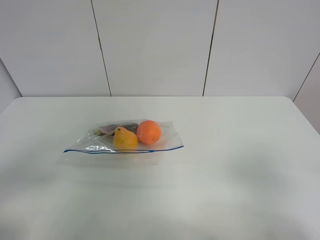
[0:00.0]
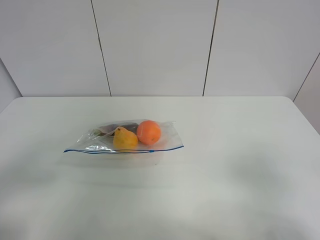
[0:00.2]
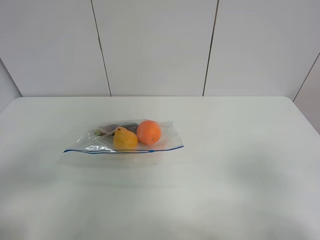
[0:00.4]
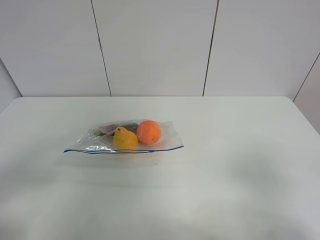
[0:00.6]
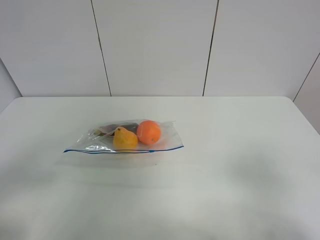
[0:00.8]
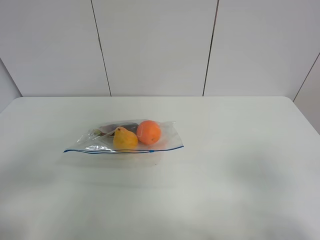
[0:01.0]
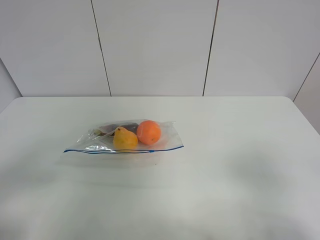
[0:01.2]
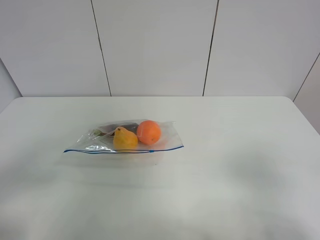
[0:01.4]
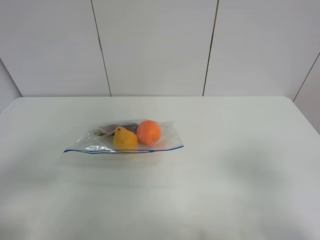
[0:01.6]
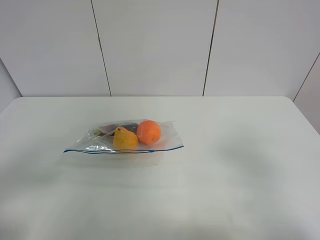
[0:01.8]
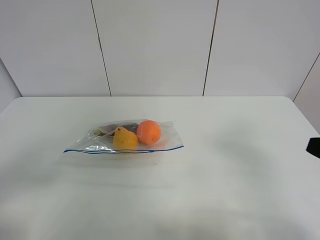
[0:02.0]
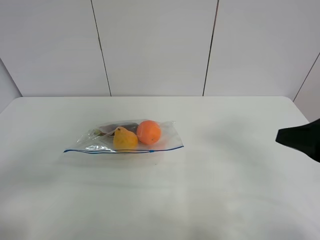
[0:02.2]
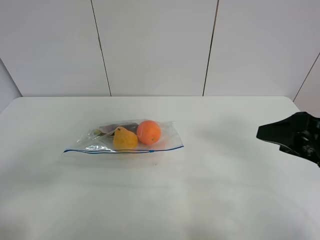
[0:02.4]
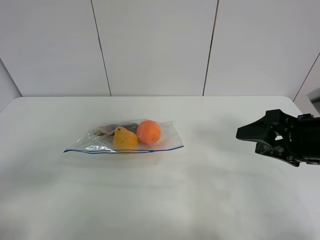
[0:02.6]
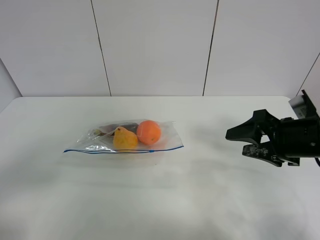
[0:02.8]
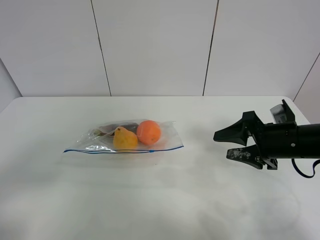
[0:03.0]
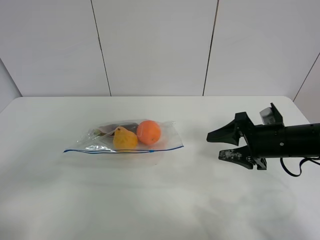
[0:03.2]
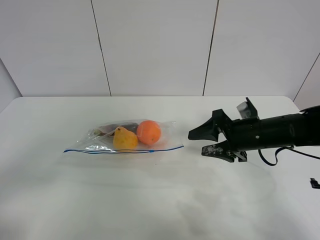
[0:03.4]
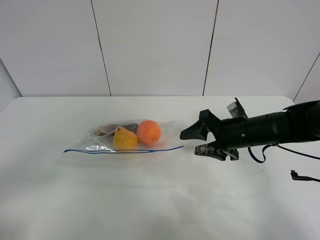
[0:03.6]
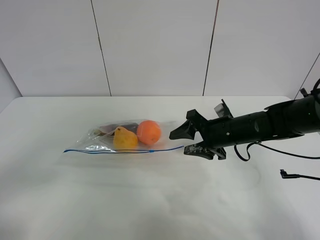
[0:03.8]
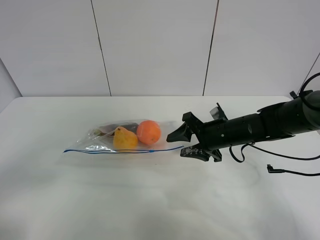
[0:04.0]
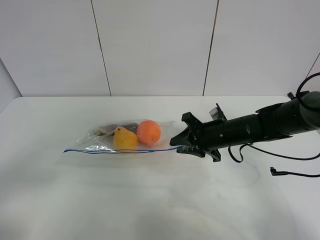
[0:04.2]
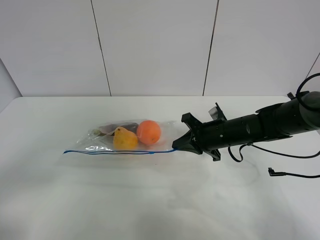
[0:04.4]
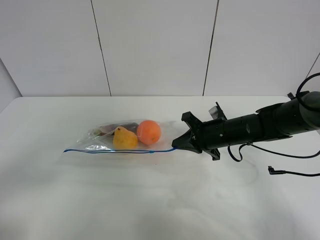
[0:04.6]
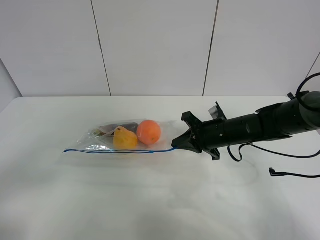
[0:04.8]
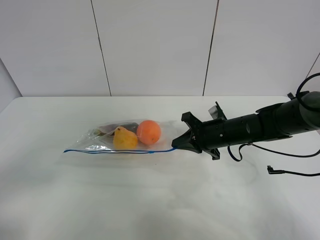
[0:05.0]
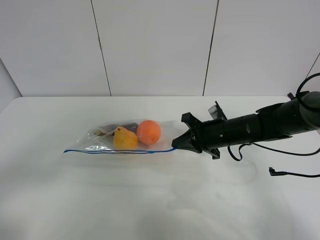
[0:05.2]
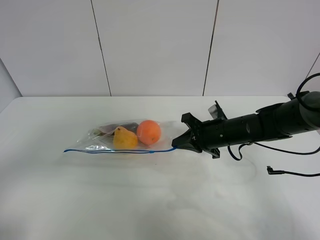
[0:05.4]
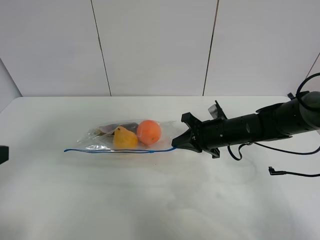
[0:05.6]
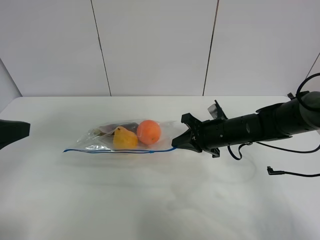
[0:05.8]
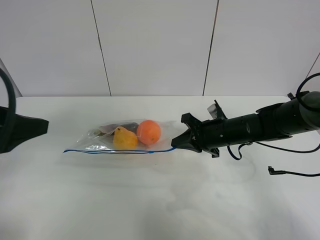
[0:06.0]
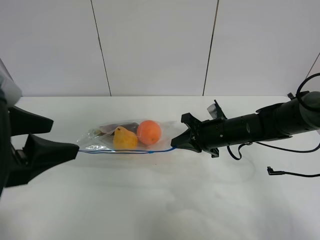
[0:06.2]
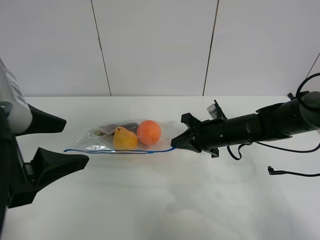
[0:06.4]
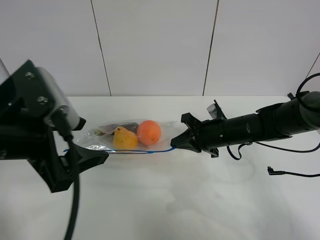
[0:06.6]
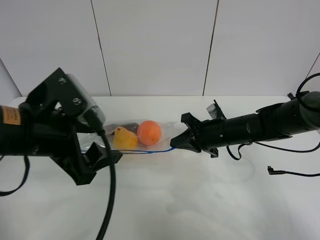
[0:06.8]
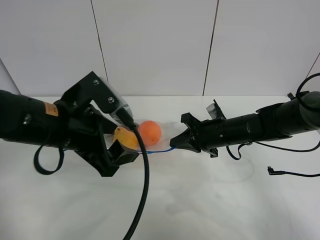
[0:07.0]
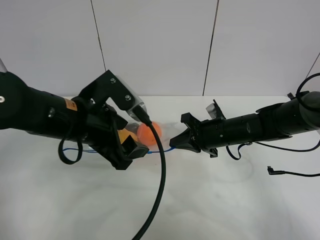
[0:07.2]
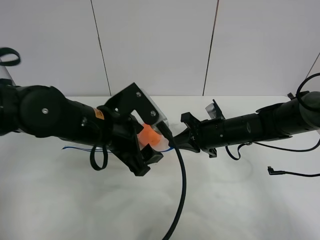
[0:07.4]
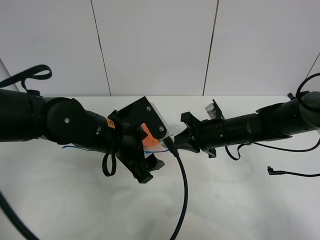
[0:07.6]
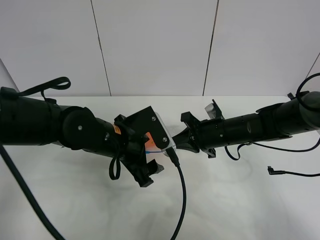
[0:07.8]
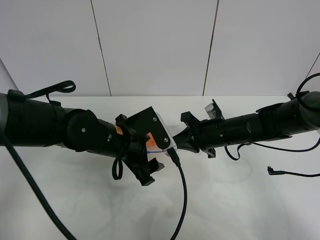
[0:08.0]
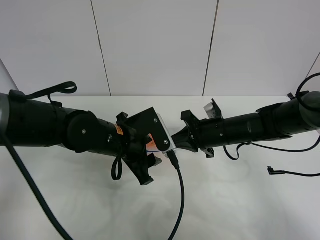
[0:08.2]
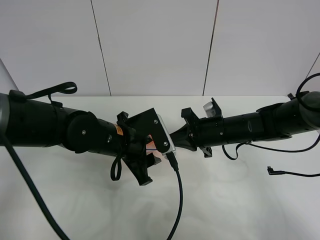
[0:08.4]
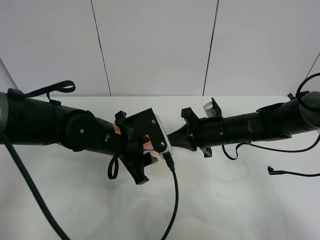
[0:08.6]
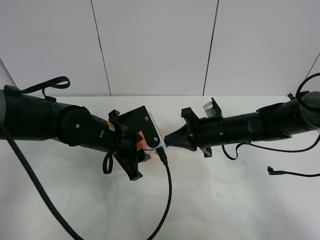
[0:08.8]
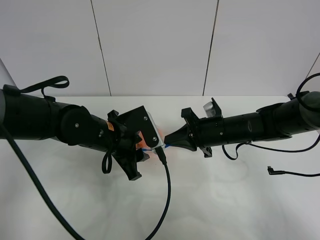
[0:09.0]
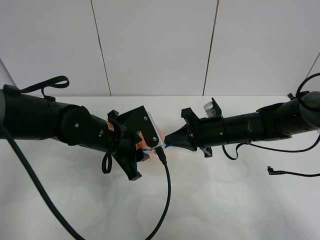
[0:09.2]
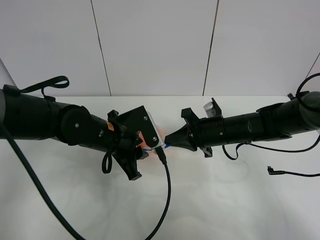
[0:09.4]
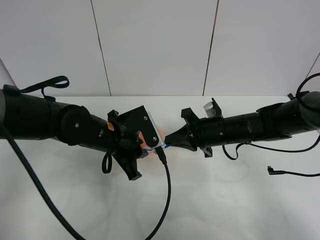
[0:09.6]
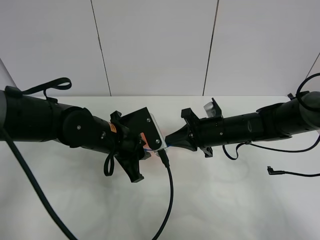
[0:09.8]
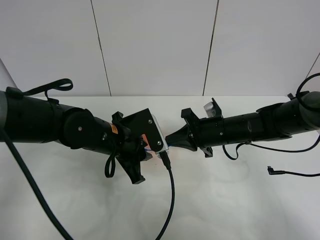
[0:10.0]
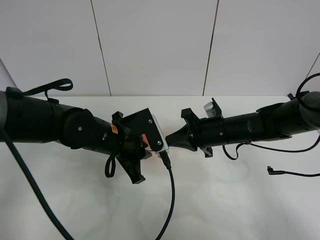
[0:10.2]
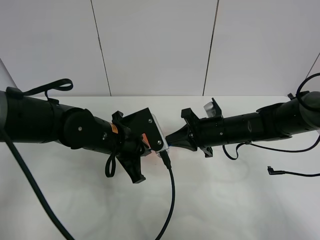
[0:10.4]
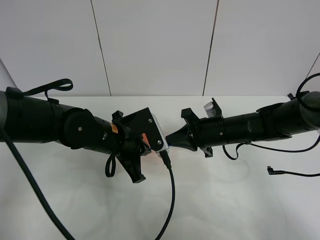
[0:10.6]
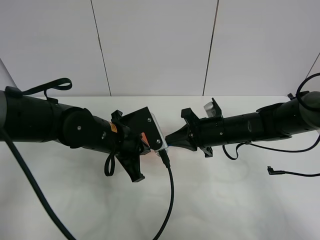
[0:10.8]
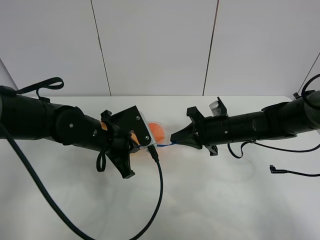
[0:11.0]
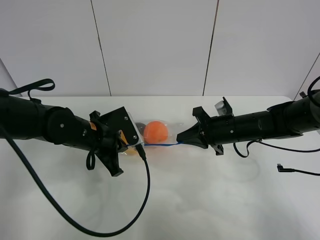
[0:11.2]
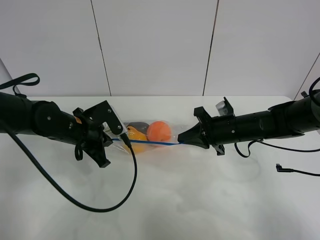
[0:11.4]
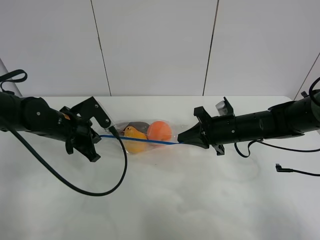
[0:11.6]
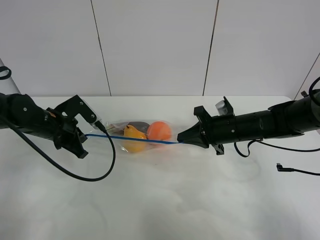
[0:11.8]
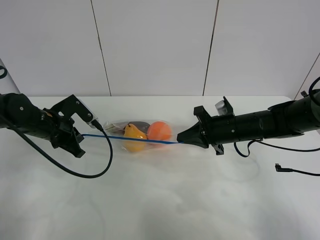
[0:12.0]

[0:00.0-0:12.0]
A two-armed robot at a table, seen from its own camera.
Step, 0:00.0 to 0:04.4: Grasp the fruit bag with right gripper.
0:01.6 to 0:03.0: The right gripper is displaced forward and downward by some 25 cm.
0:03.0 to 0:04.4: The right gripper shifts approximately 15 cm to the left, forward and downward, and closes.
0:04.4 to 0:06.0: The left gripper shifts roughly 15 cm forward.
0:06.0 to 0:07.6: The left gripper moves to the right, downward and forward, about 25 cm.
0:07.6 to 0:09.0: The left gripper closes.
0:09.0 to 0:10.4: The left gripper closes its fingers.
0:10.4 to 0:12.0: The left gripper moves to the left, approximately 15 cm.

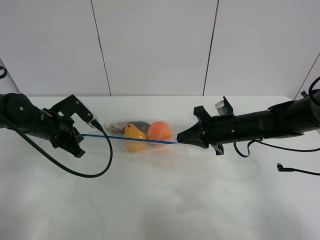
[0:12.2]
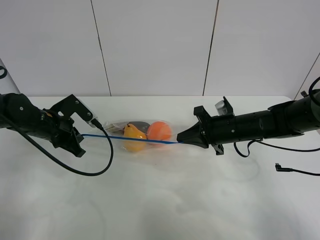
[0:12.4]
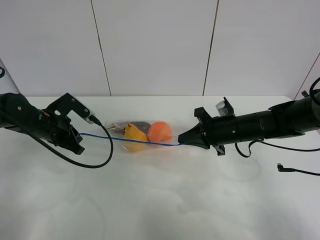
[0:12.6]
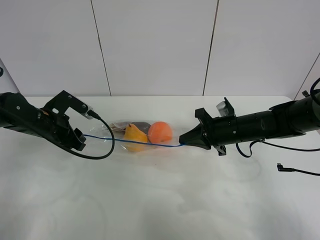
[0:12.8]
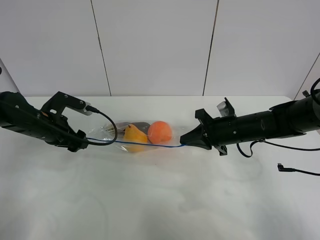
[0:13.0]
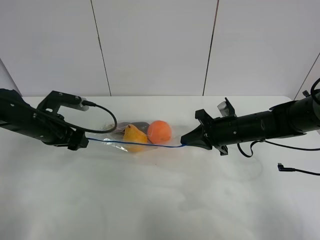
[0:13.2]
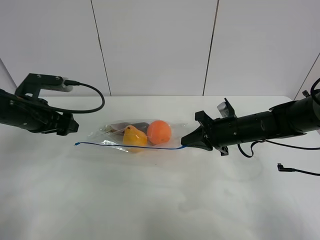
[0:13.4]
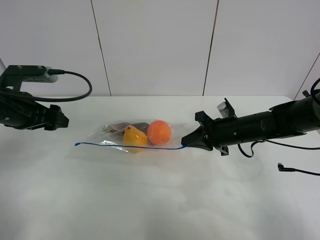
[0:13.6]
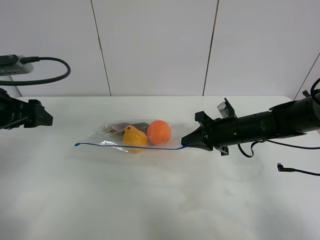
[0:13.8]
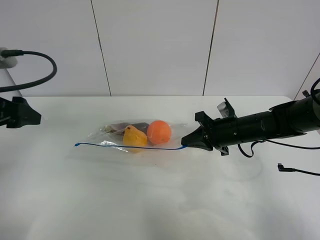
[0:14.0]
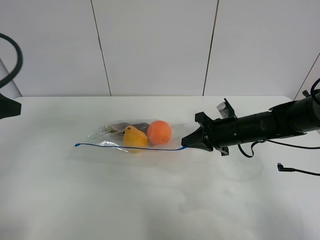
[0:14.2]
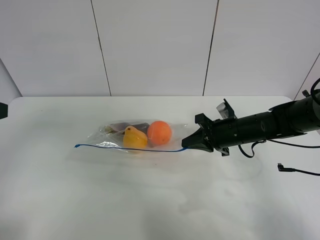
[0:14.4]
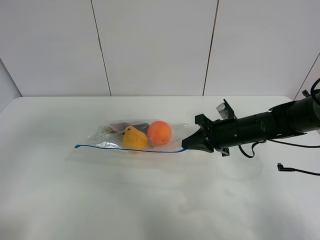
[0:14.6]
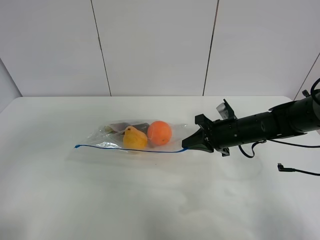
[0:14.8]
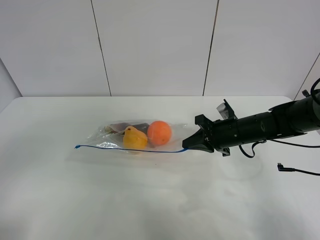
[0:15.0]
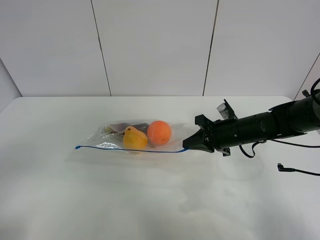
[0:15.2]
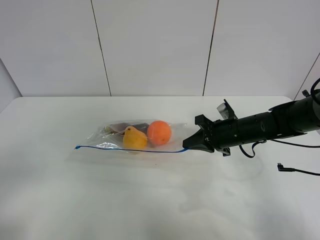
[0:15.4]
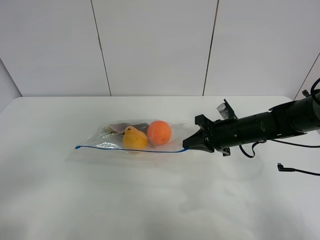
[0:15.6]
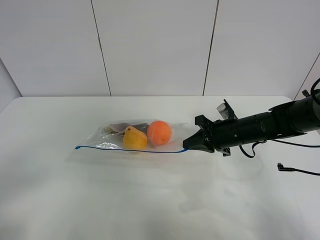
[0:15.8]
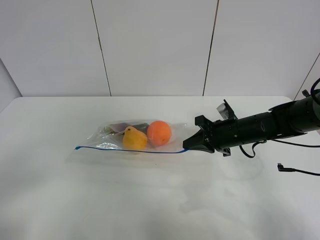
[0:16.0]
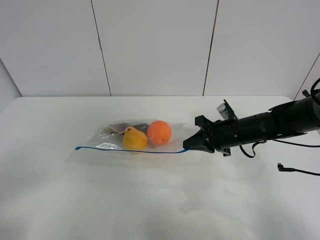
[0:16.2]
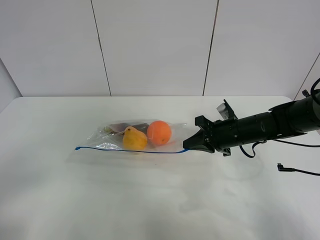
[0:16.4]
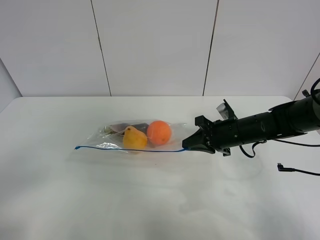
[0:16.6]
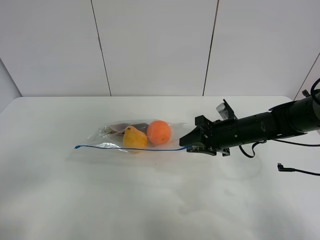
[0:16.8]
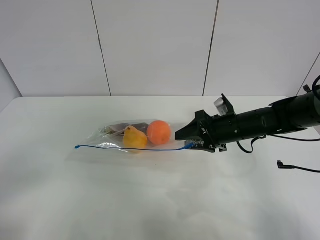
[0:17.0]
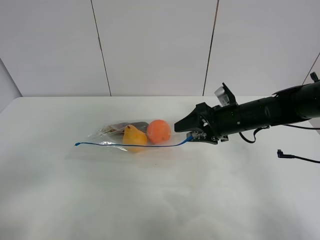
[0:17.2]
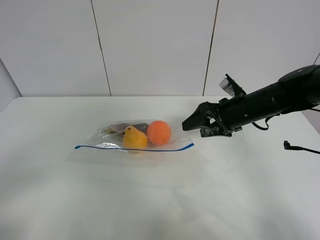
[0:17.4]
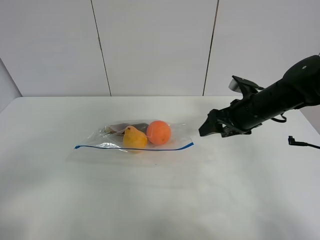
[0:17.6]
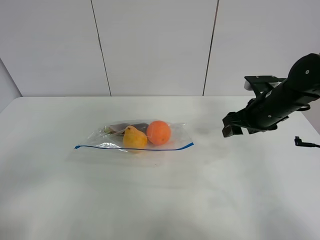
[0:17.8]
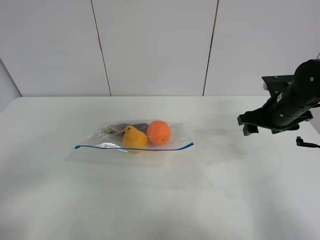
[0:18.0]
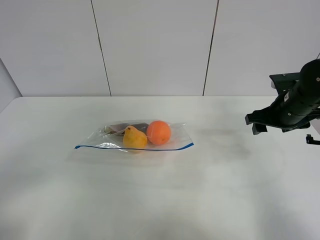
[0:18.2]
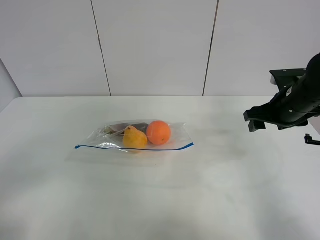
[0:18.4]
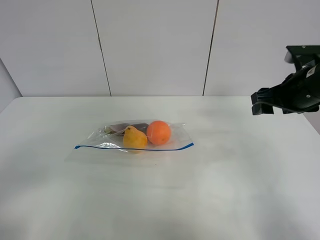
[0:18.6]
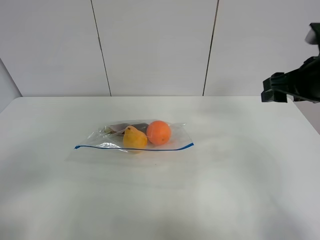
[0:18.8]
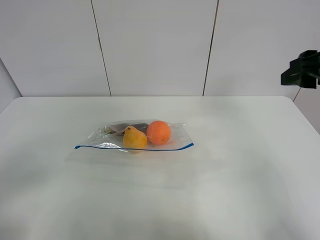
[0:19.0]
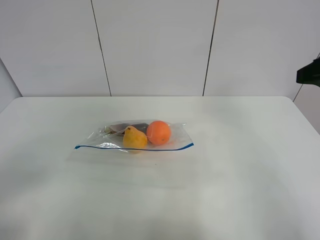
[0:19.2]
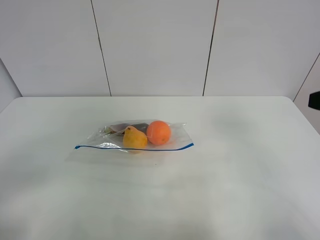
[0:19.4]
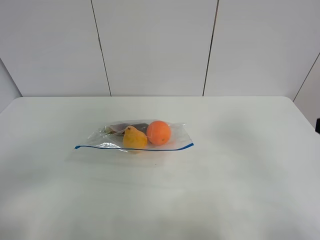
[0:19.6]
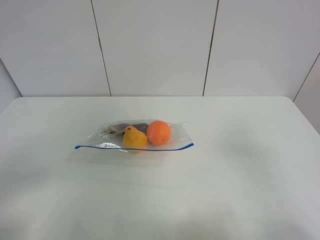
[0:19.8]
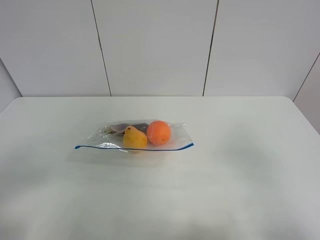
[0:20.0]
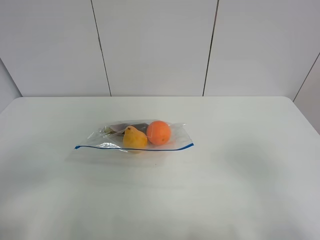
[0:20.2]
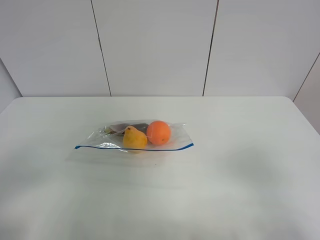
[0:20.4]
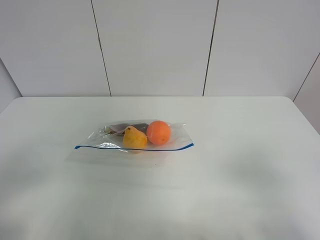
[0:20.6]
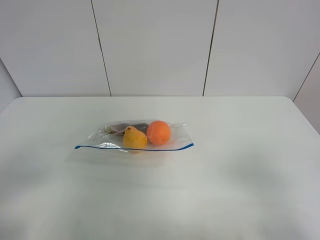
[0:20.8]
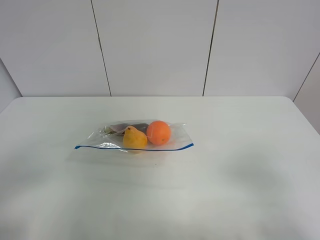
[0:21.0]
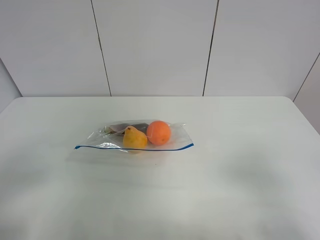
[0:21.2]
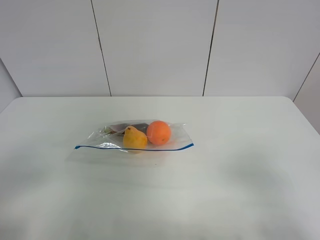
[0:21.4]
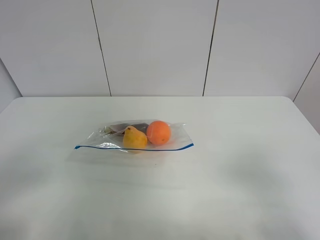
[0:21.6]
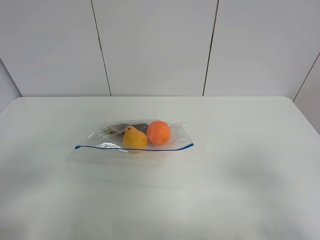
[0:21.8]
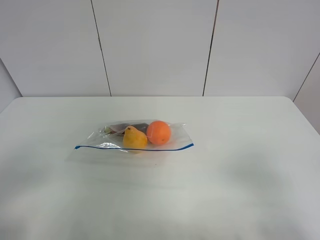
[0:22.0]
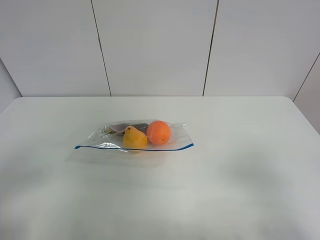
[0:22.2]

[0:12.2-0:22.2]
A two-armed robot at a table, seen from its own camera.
0:12.2 to 0:13.6: The left gripper heads upward, covering about 10 cm, and opens up.
0:13.6 to 0:15.0: The left gripper is displaced backward by about 25 cm.
0:15.0 to 0:16.4: The left gripper goes approximately 5 cm downward.
0:16.4 to 0:18.0: The right gripper goes roughly 10 cm to the right and upward, and opens up.
0:18.0 to 0:19.4: The right gripper moves backward and upward, about 25 cm.
0:19.4 to 0:20.8: The right gripper heads backward and downward, covering roughly 15 cm.
0:20.8 to 0:22.2: Neither gripper changes place.
